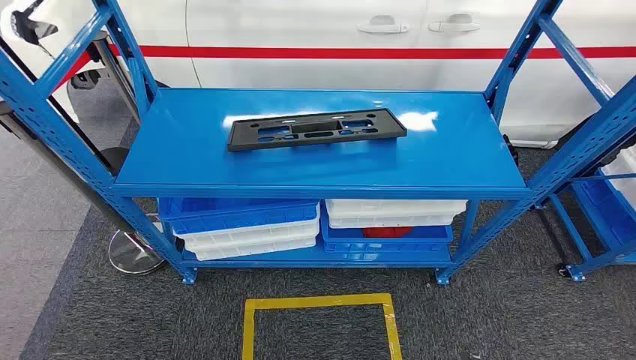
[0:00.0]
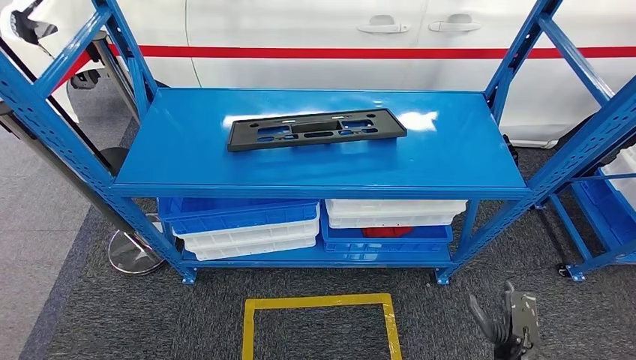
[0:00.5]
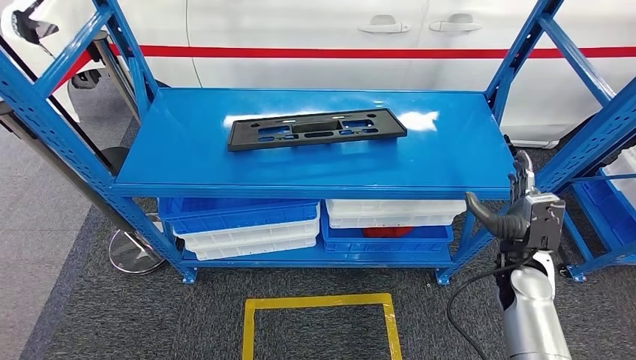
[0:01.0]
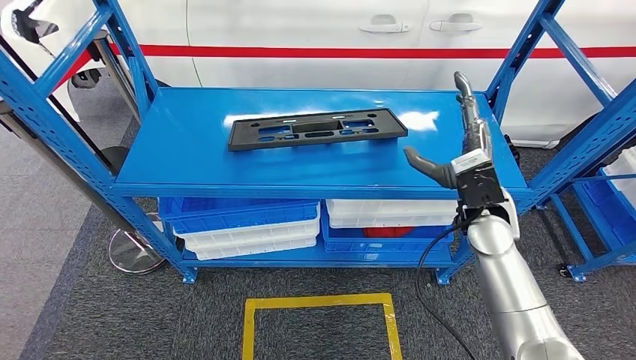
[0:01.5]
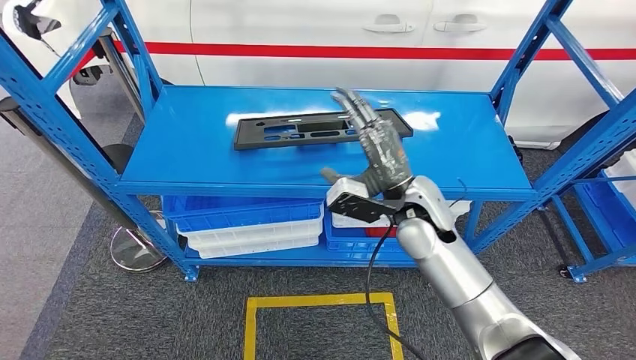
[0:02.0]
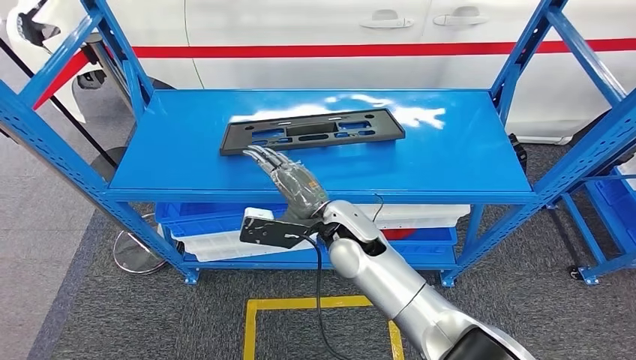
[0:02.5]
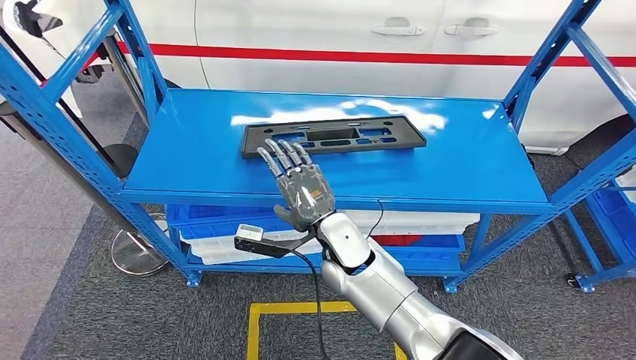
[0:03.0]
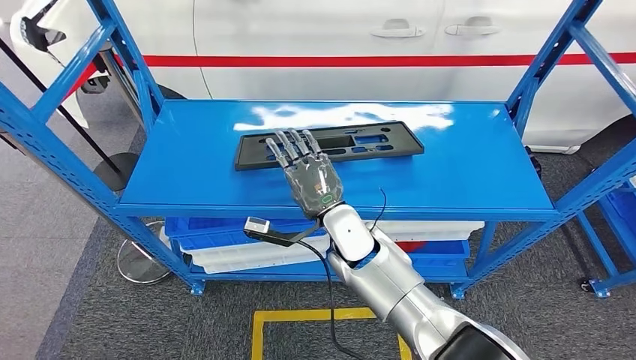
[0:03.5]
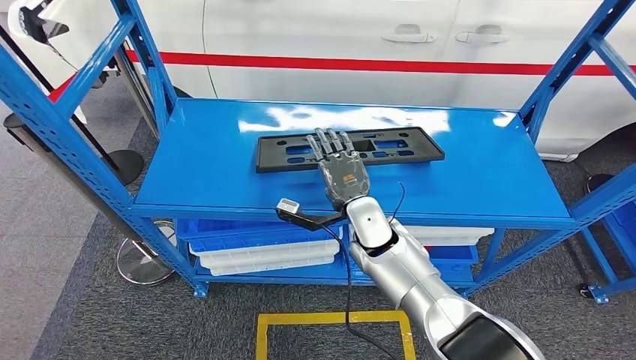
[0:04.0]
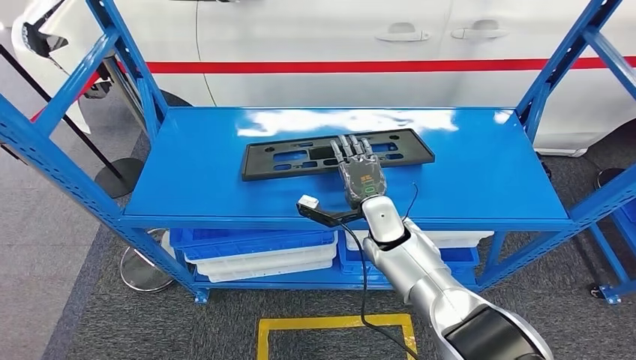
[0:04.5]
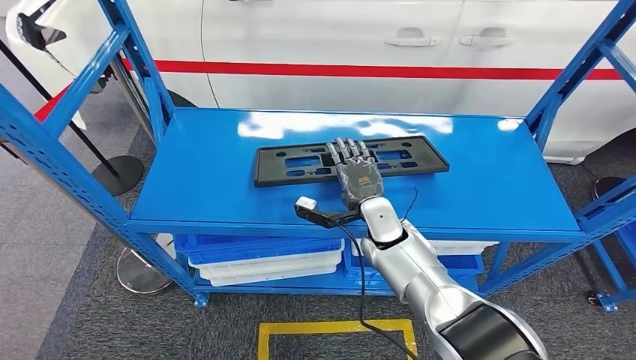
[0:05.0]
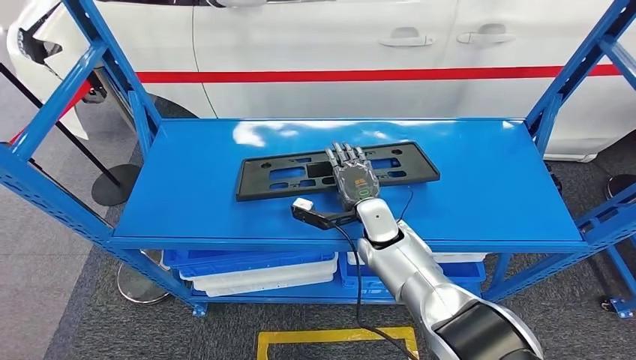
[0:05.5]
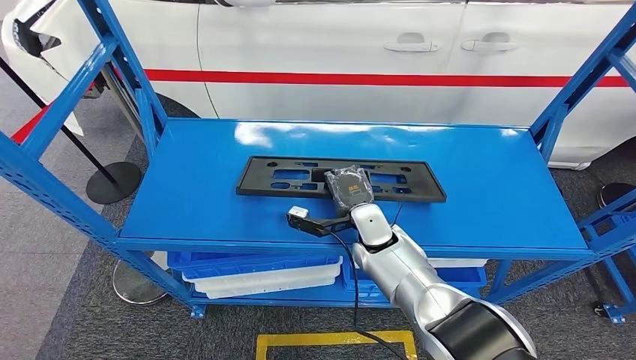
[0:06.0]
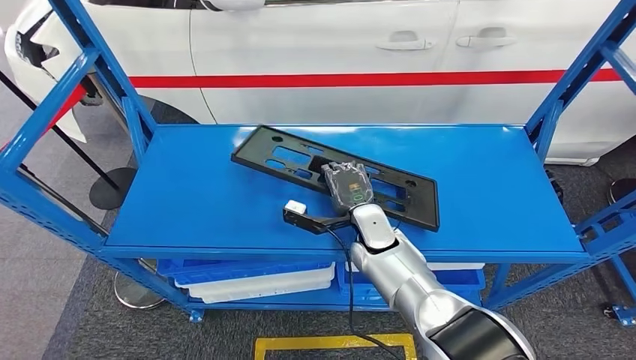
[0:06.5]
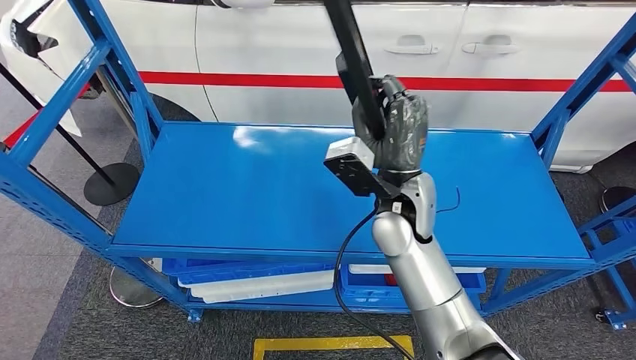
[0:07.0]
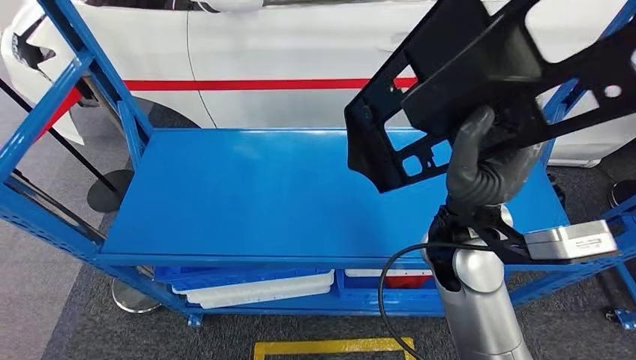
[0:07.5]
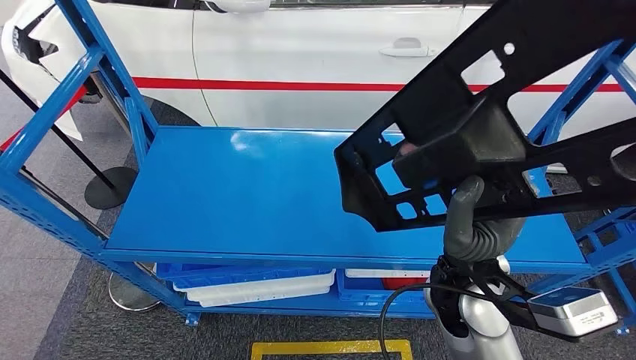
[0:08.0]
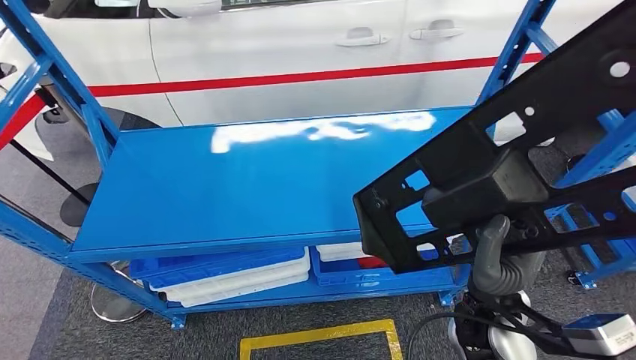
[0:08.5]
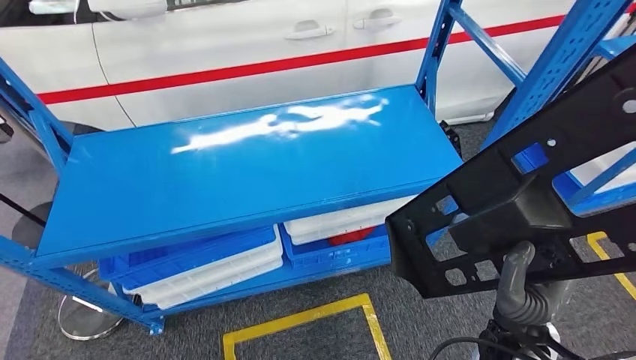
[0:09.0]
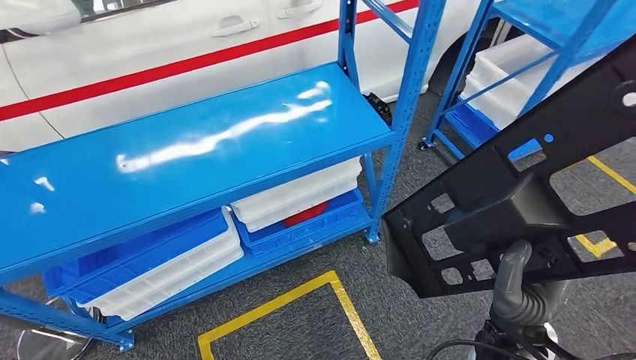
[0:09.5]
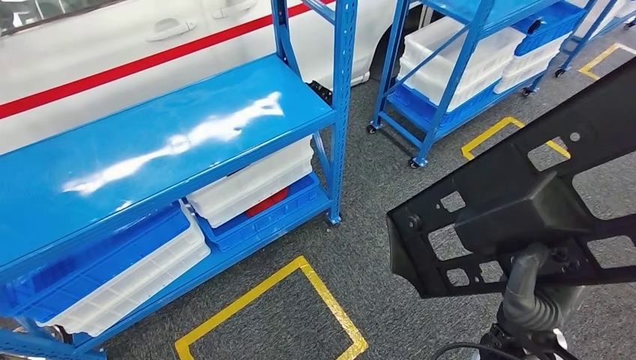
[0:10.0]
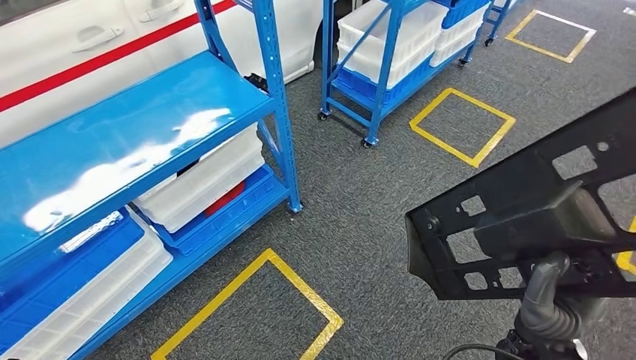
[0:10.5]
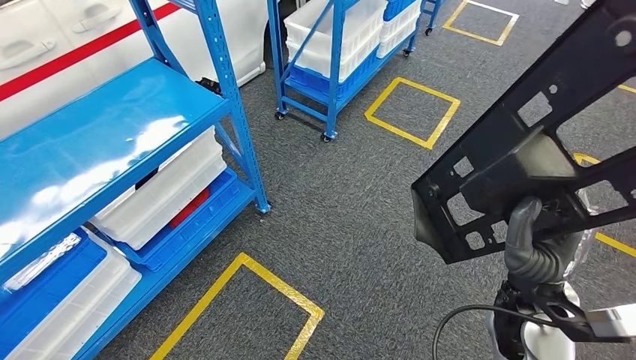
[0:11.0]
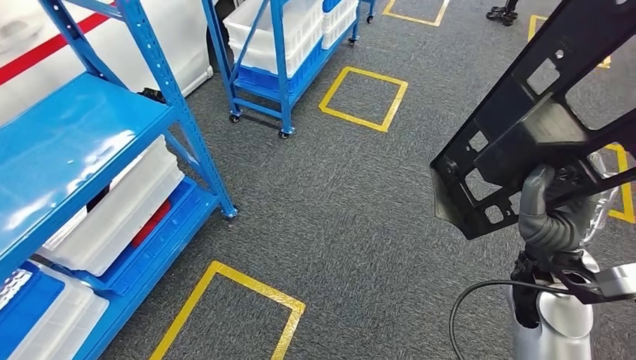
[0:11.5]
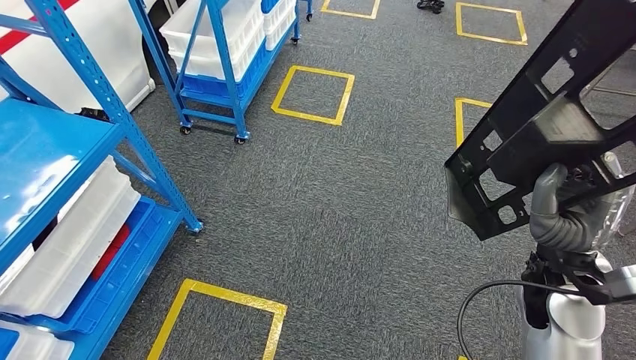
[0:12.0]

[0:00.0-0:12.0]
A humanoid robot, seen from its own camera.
Step, 0:00.0 to 0:09.0: Pick up the large material from the shelf.

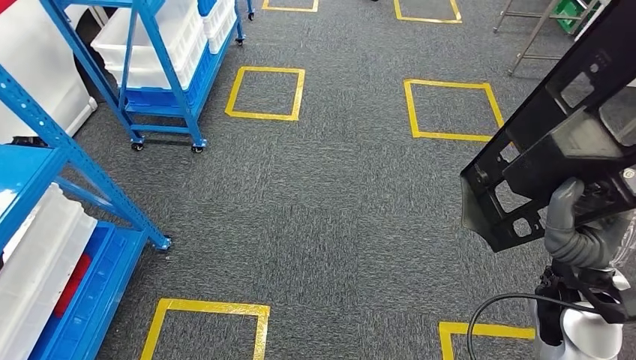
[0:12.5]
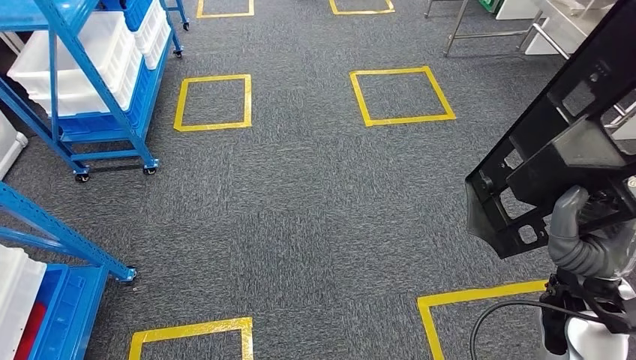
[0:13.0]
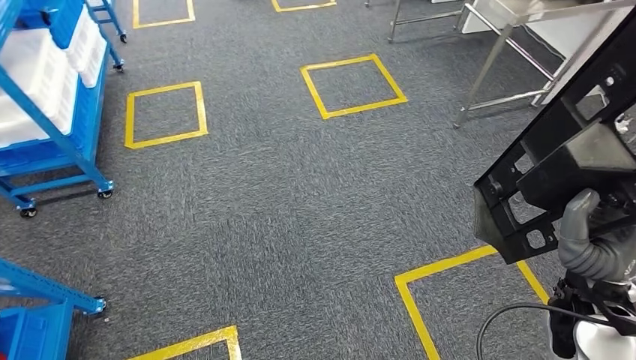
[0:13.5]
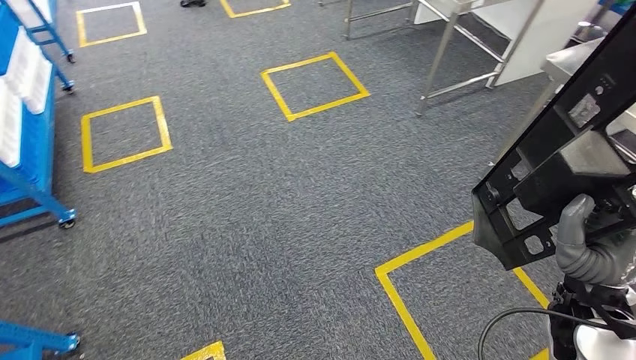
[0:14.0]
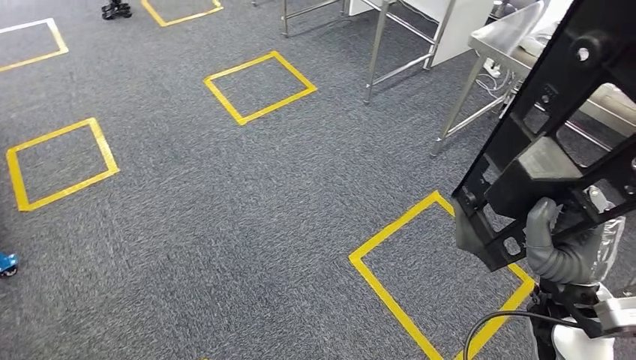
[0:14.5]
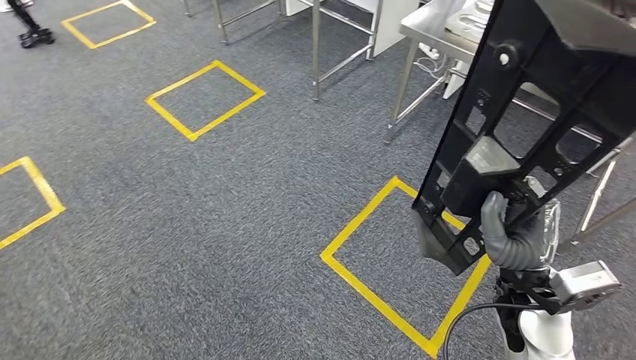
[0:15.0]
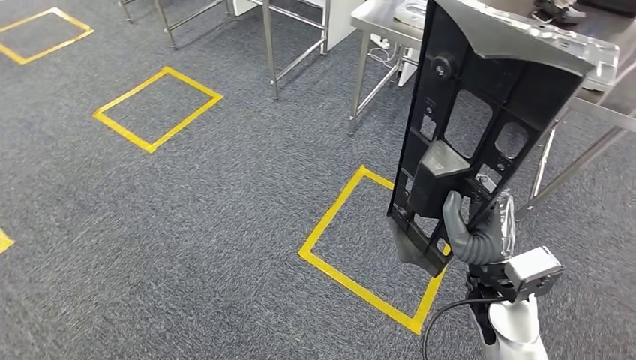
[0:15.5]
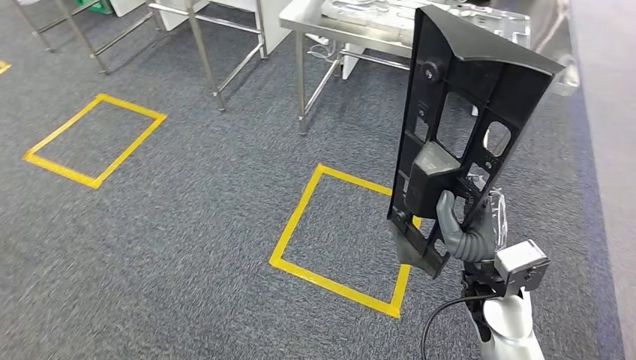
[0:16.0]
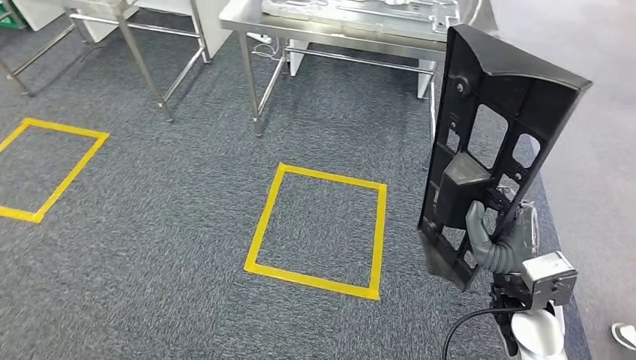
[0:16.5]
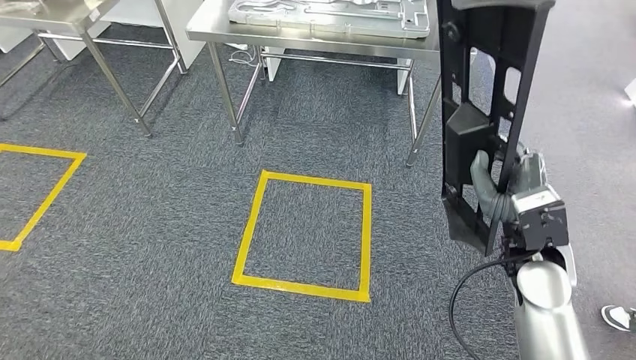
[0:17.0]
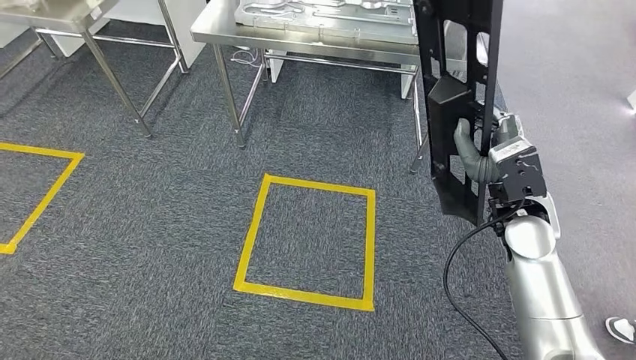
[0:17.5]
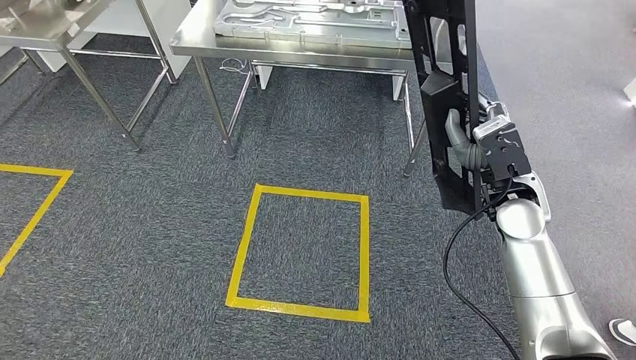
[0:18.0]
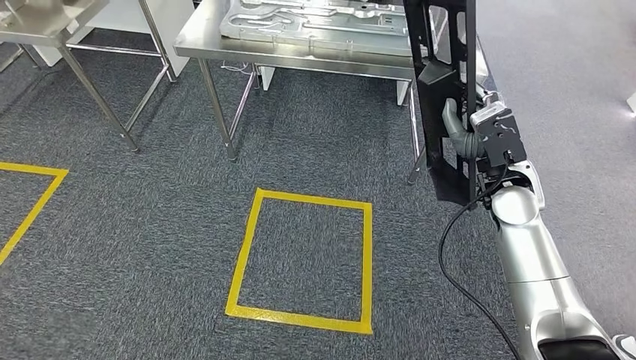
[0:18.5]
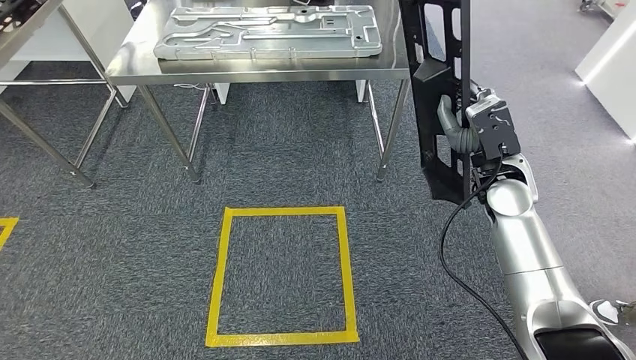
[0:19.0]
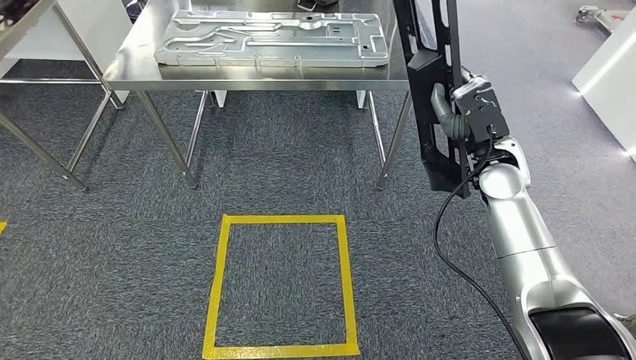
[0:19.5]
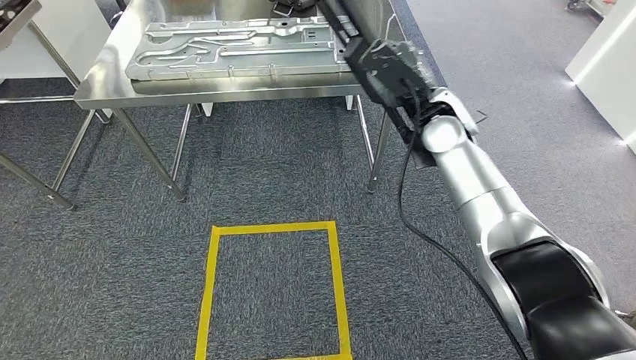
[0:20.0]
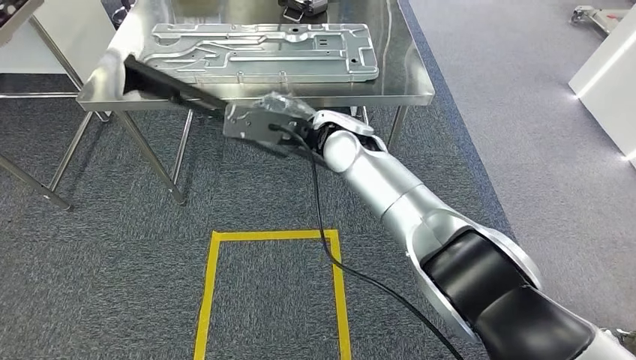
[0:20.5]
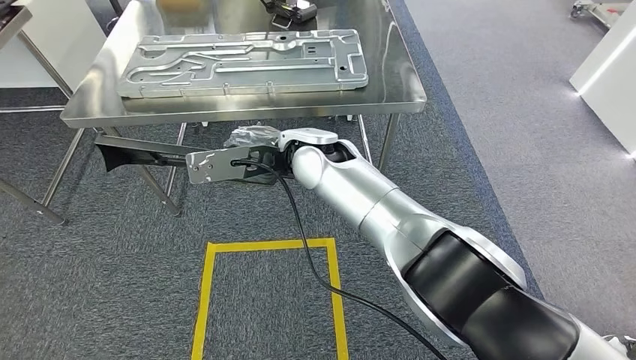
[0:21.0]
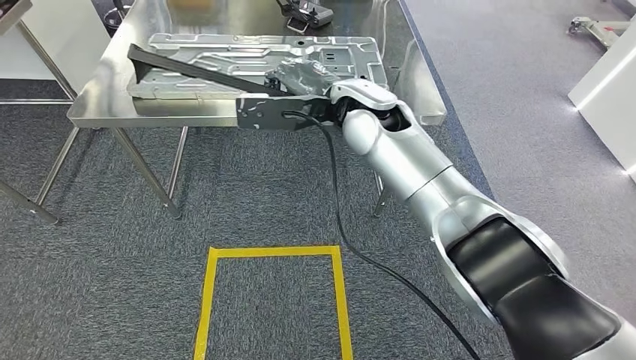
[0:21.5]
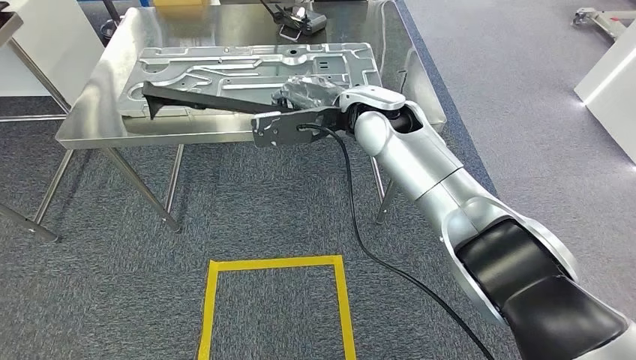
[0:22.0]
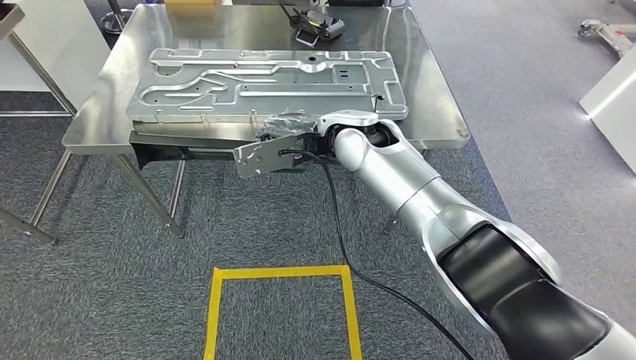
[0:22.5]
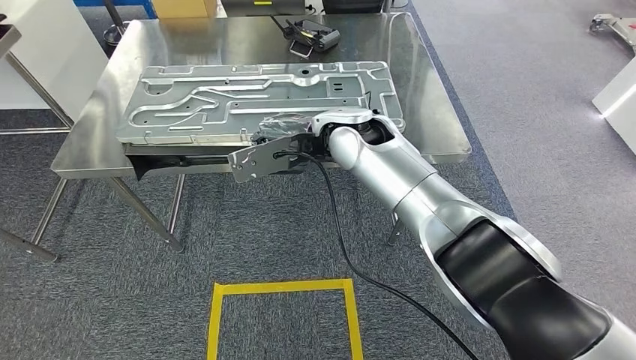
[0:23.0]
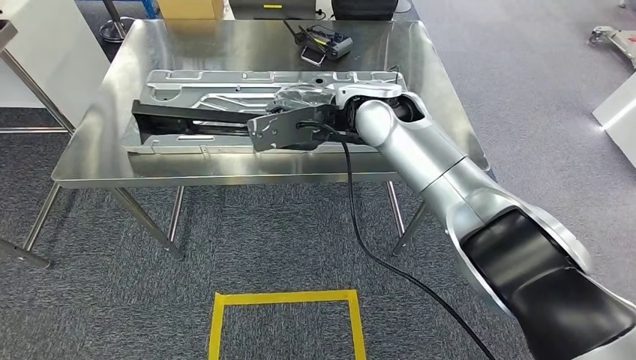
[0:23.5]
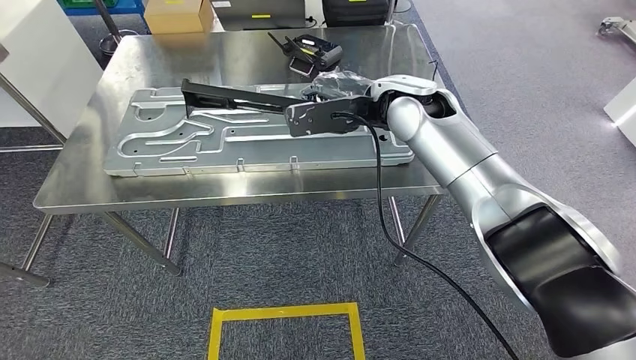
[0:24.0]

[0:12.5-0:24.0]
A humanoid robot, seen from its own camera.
Step, 0:12.5 to 0:21.5: Move the large material to the workbench.
